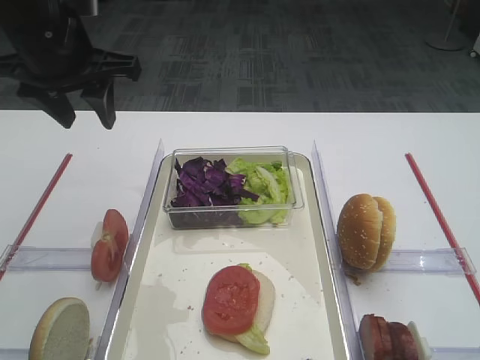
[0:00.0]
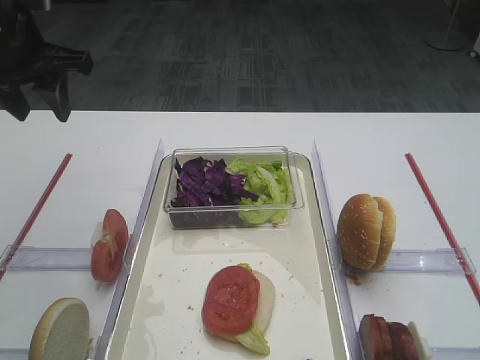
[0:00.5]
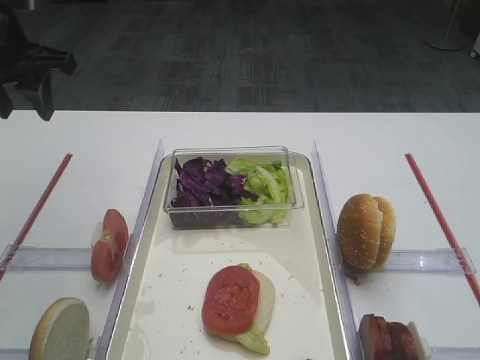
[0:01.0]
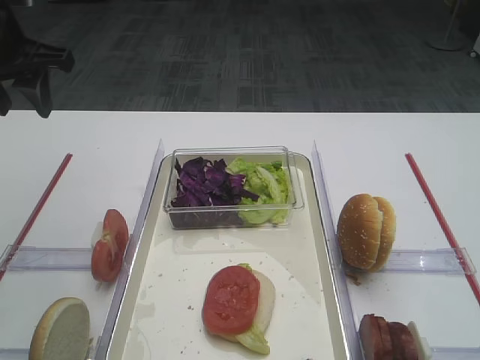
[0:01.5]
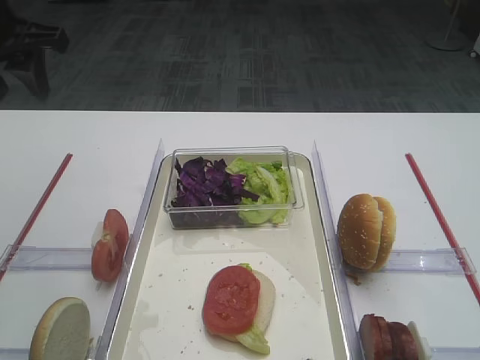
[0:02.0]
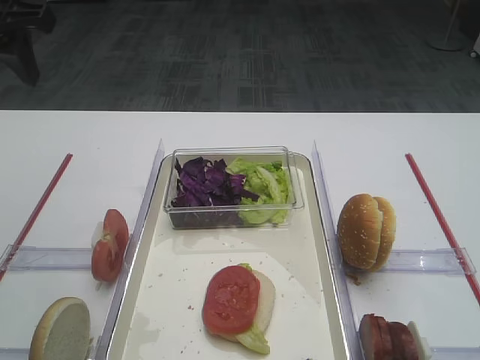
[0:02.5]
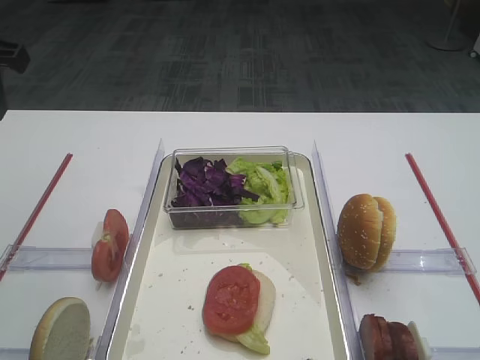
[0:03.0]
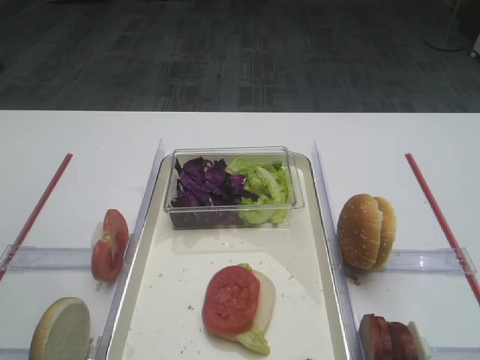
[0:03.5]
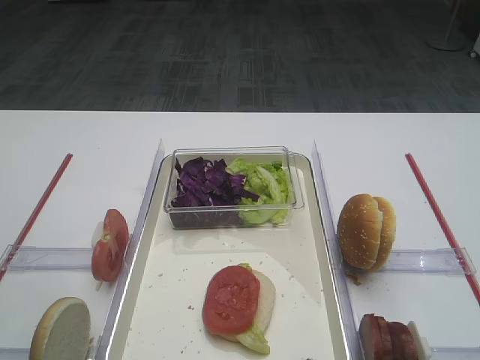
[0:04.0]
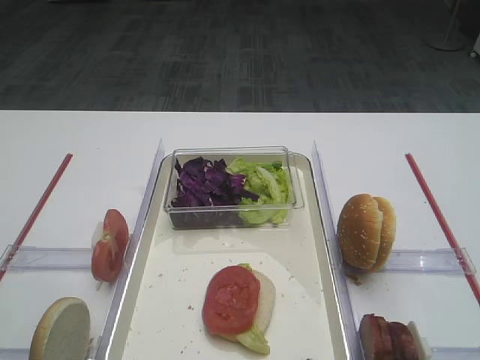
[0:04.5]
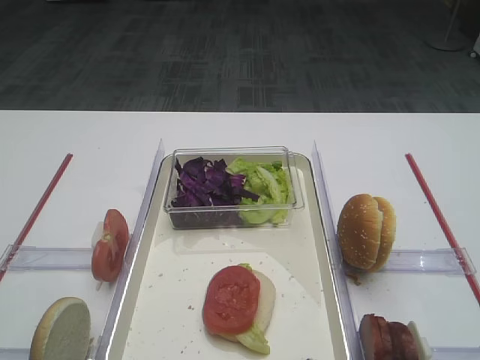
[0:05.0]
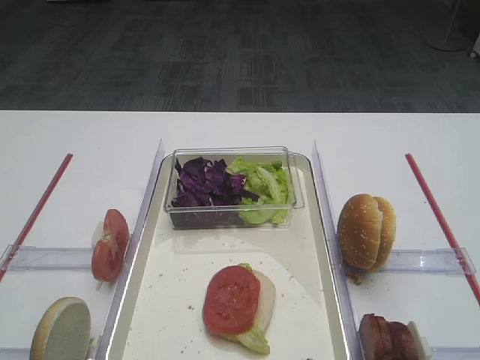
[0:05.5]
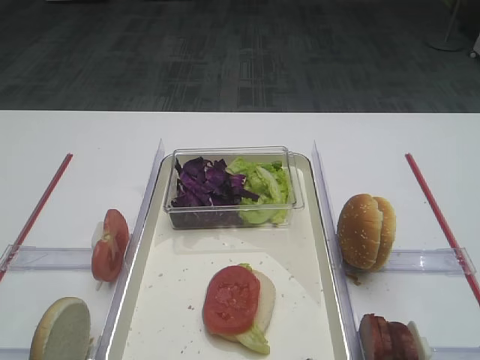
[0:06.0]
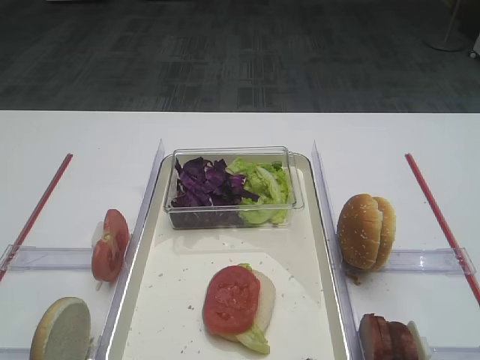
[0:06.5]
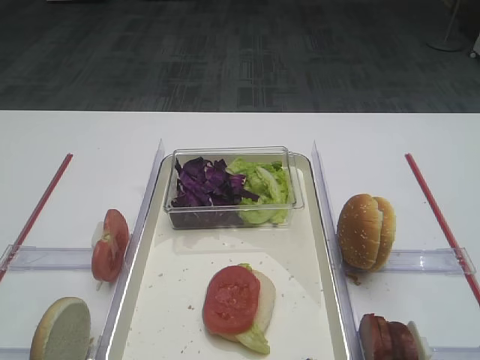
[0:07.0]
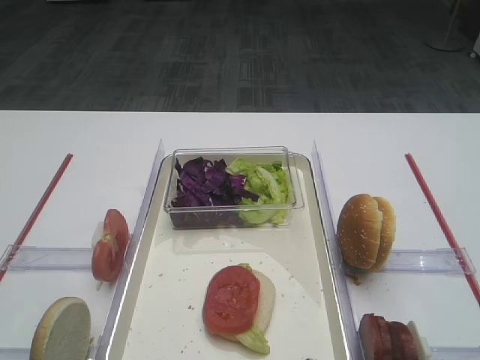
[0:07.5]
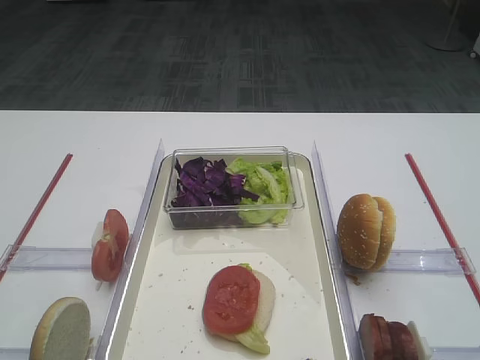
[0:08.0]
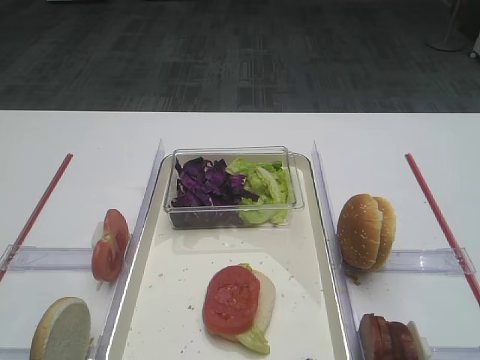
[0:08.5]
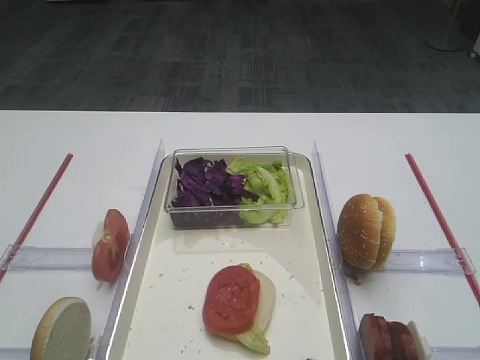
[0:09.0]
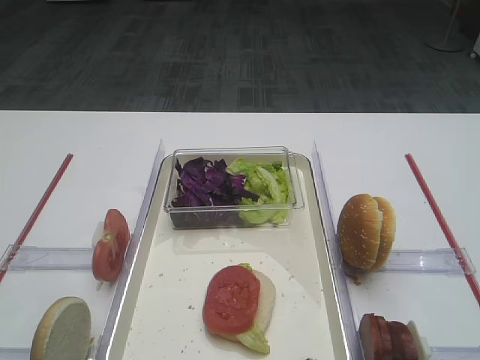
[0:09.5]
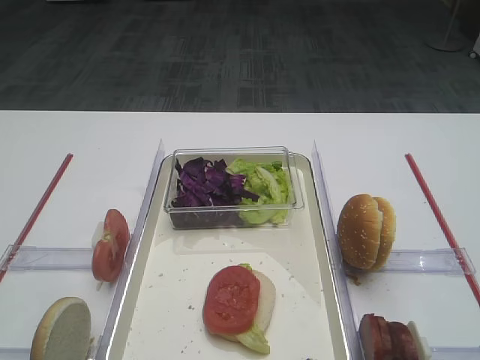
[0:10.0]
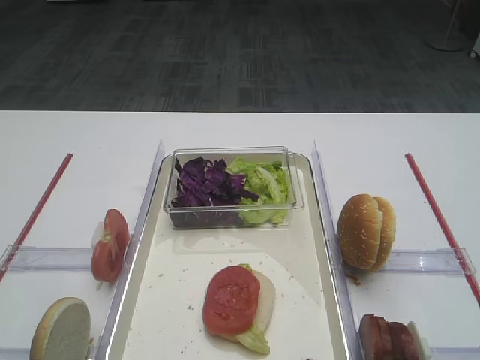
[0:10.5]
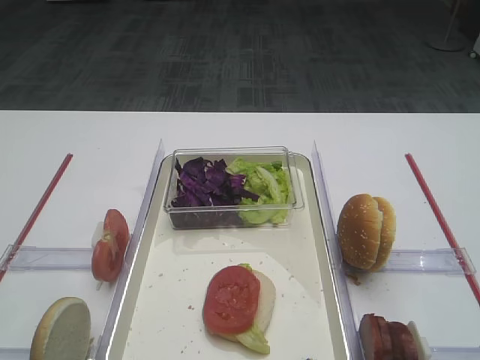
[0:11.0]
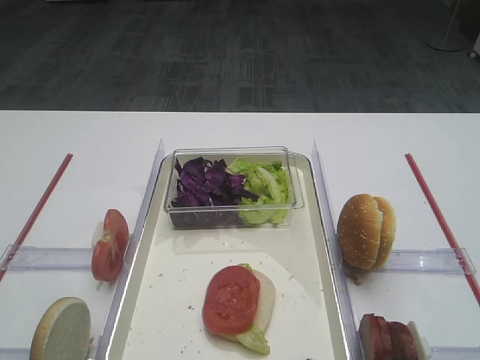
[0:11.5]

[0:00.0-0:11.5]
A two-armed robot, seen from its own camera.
0:00.0 to 0:02.0: The left gripper heads to the left, covering some 5 cm.
0:02.0 to 0:04.0: The left gripper is displaced backward by some 15 cm.
0:07.5 to 0:09.5: Both grippers stay put.
0:09.5 to 0:11.5: Both grippers stay about where they are.

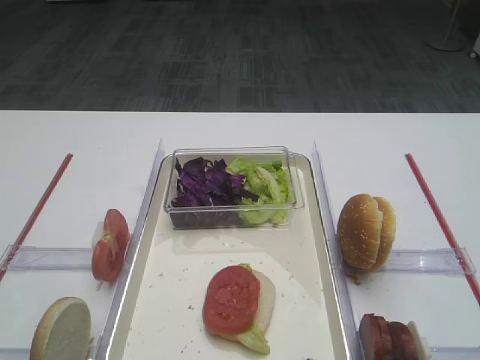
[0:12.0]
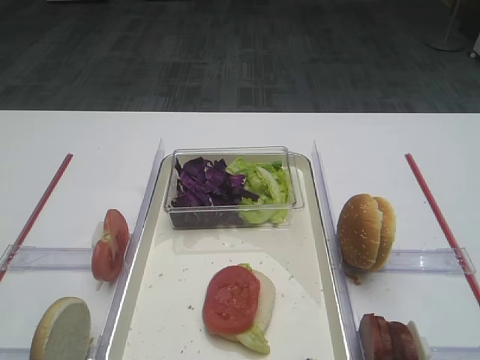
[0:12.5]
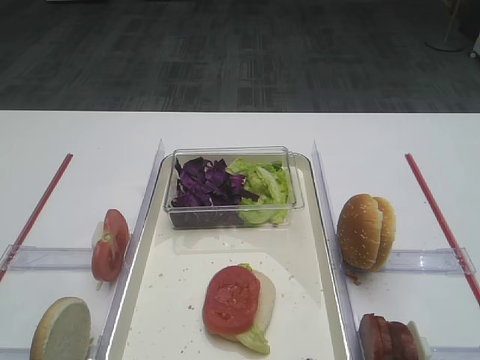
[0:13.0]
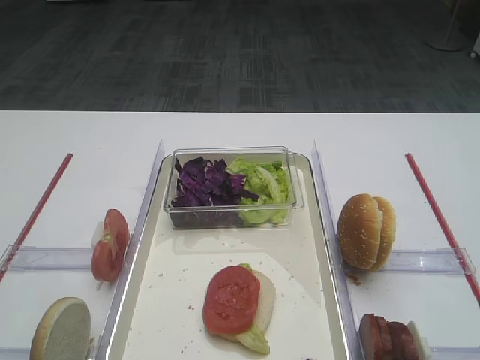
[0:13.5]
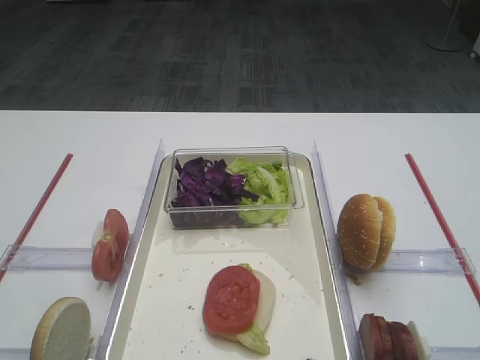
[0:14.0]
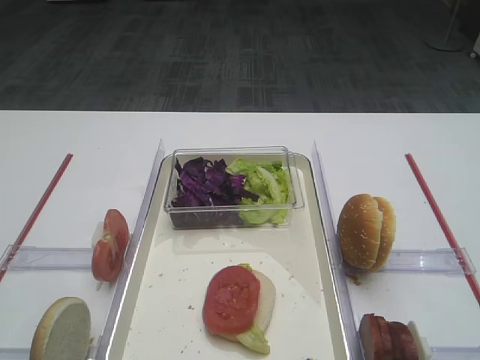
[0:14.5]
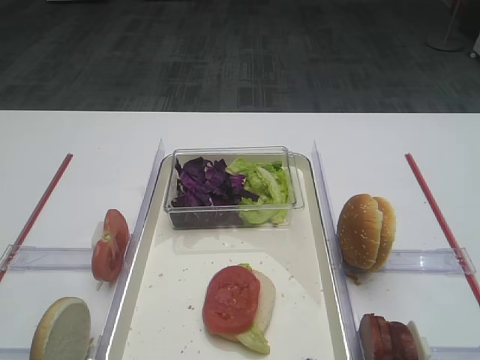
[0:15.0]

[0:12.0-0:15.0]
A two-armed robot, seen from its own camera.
0:12.0 to 0:15.0: Both grippers stay about where they are.

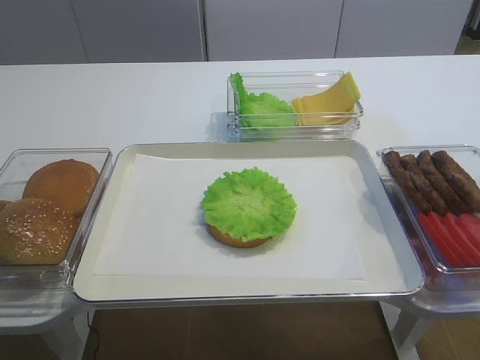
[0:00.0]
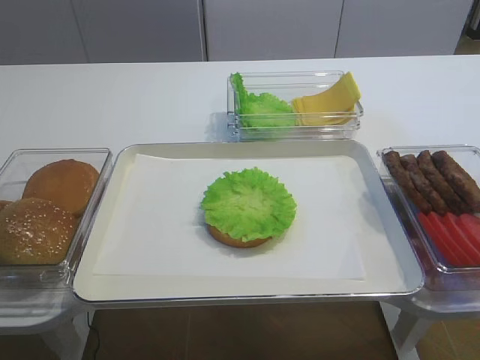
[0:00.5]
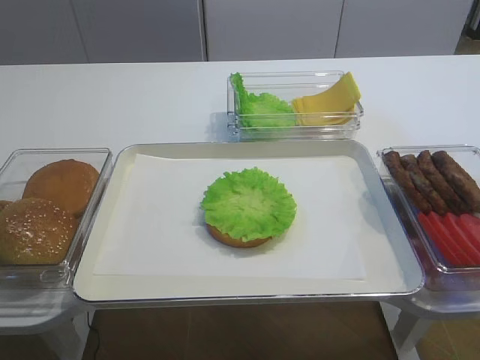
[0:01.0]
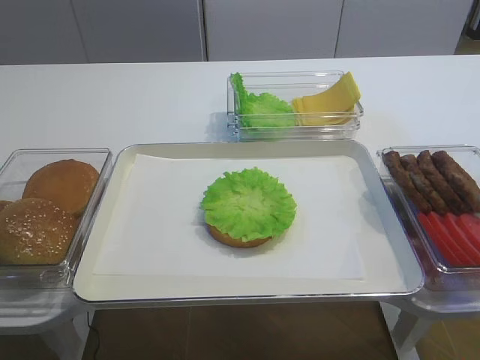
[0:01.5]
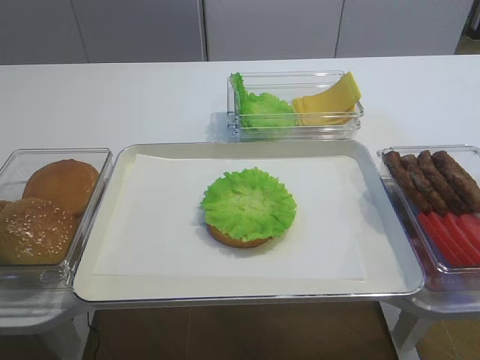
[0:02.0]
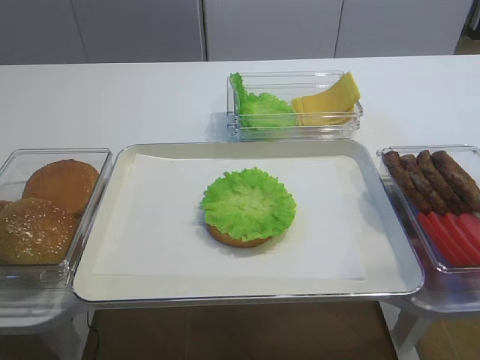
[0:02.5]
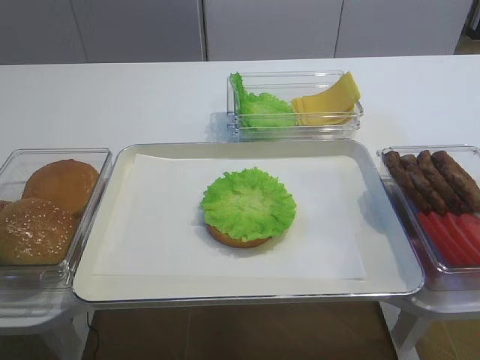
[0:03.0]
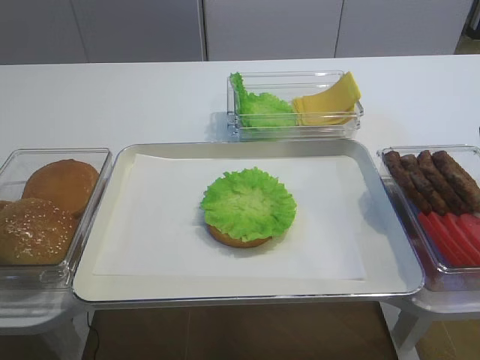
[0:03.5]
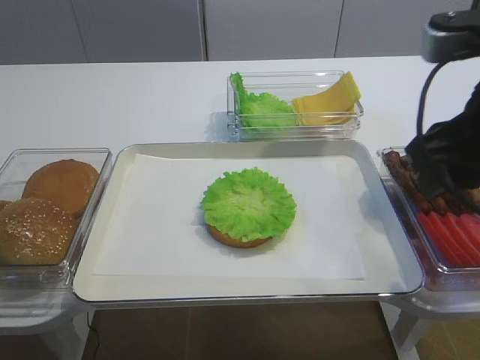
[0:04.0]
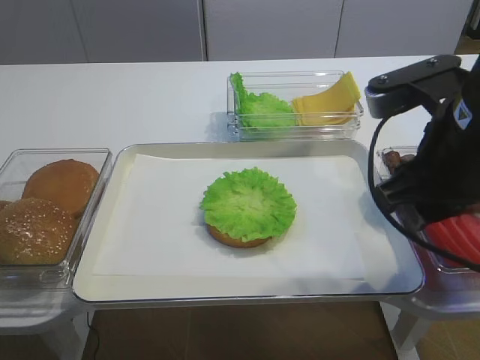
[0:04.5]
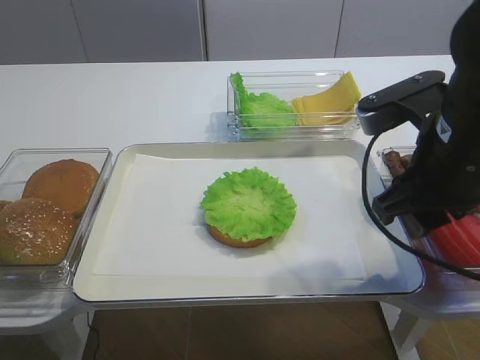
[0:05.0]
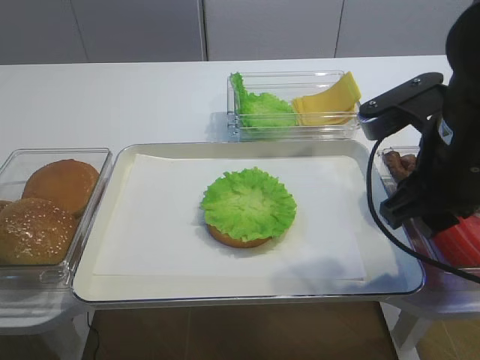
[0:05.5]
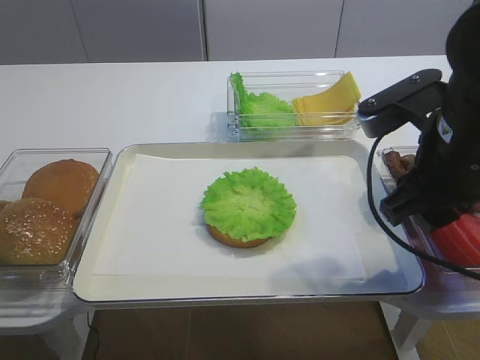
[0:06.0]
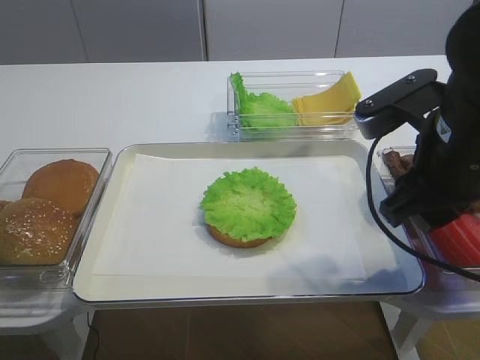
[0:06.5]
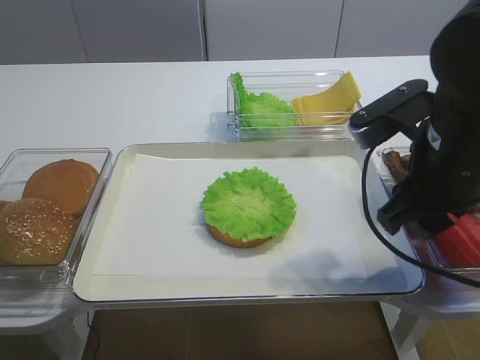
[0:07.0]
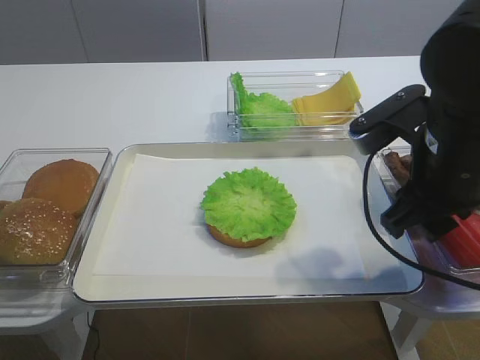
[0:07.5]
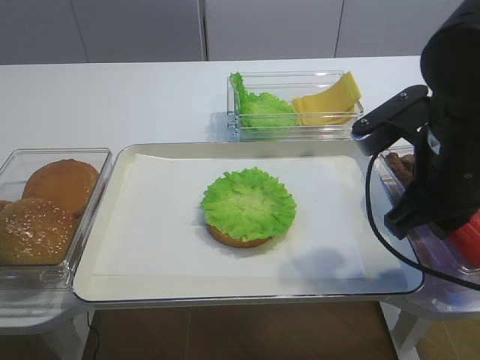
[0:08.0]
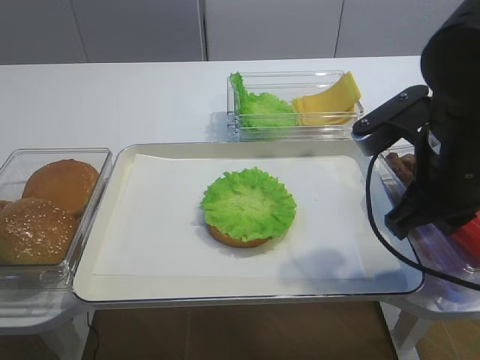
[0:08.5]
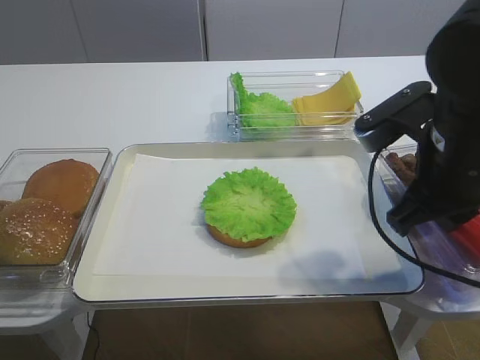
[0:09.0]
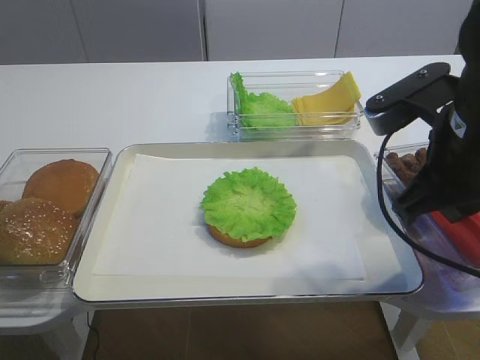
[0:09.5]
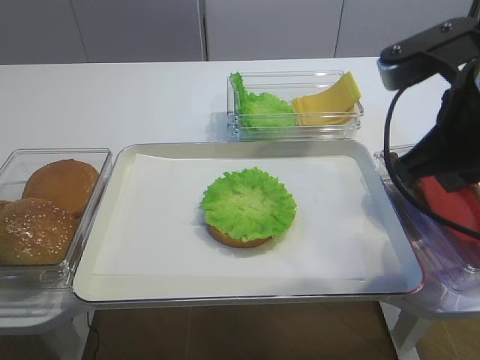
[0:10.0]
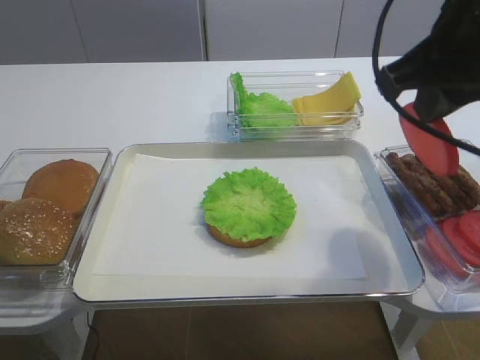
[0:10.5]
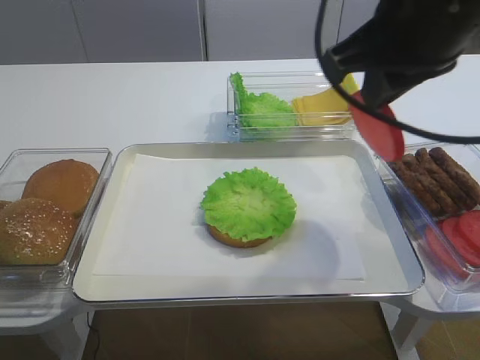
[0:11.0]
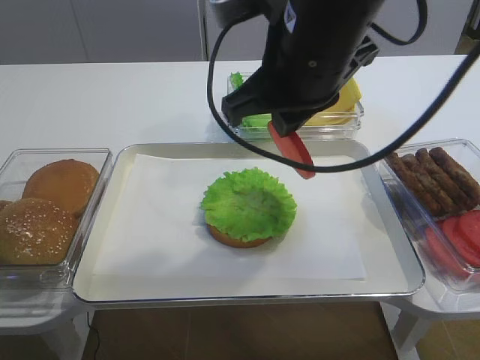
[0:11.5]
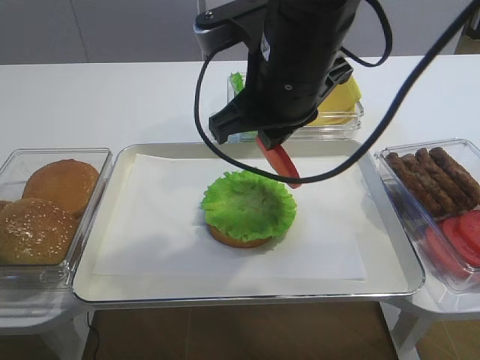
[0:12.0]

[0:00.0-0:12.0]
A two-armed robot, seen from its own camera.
Step, 0:00.0 to 0:10.0: Pick up the tomato slice with the right gripper.
0:02.0 to 0:04.0: The right gripper shifts approximately 20 cm forward and to the left, and opens up.
0:04.0 to 0:06.0: The right gripper shifts roughly 5 cm downward.
0:06.0 to 0:08.0: The right gripper closes.
0:08.0 to 0:10.0: The right gripper is displaced upward by about 5 cm, and closes up.
0:10.0 to 0:12.0: The right gripper shifts approximately 15 cm to the left and forward.
